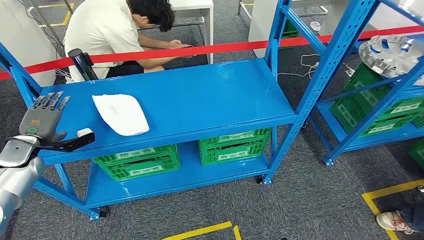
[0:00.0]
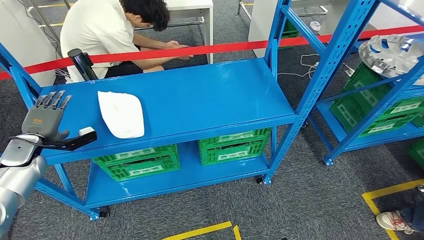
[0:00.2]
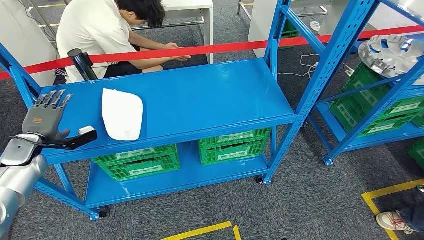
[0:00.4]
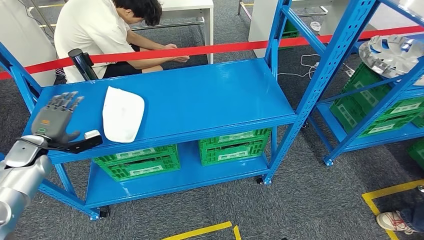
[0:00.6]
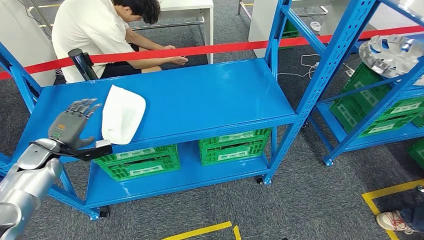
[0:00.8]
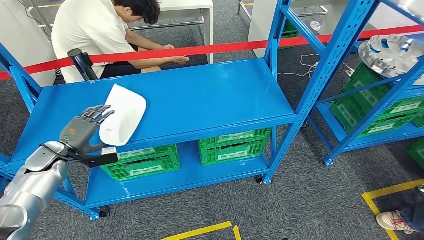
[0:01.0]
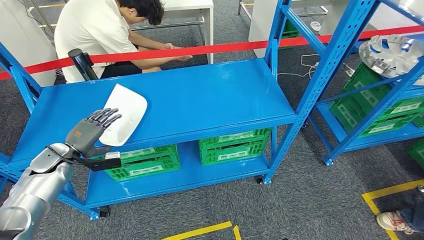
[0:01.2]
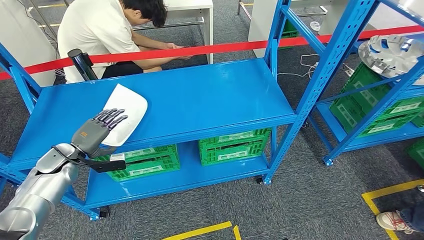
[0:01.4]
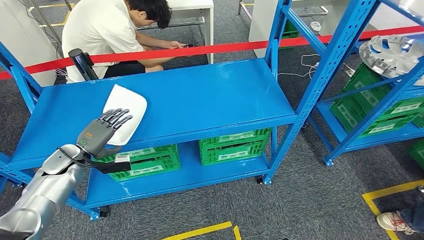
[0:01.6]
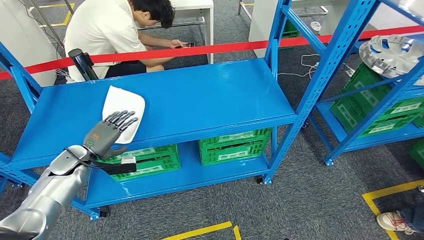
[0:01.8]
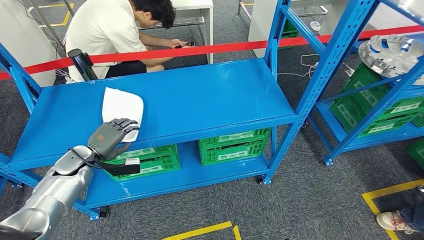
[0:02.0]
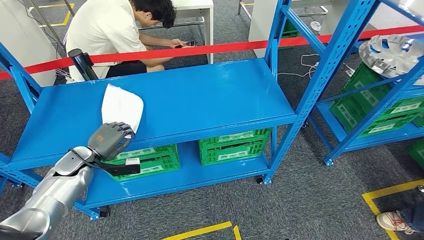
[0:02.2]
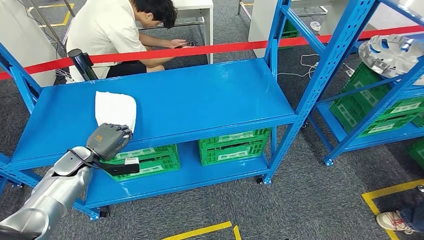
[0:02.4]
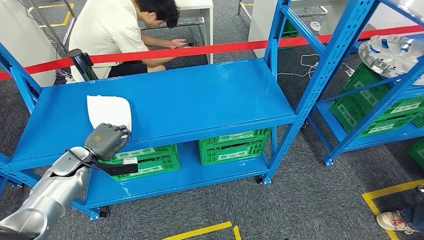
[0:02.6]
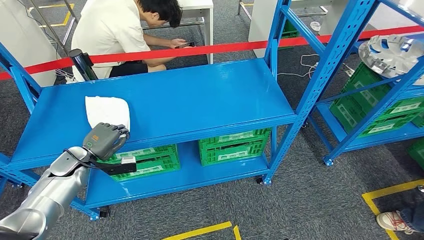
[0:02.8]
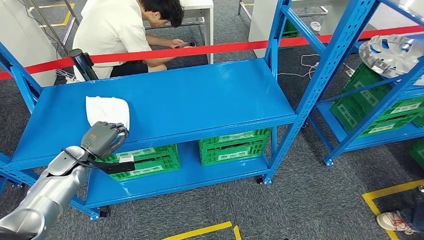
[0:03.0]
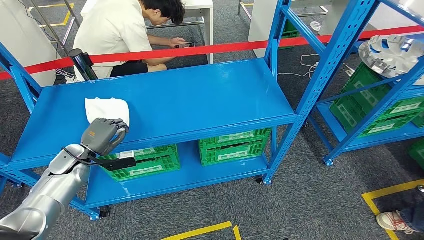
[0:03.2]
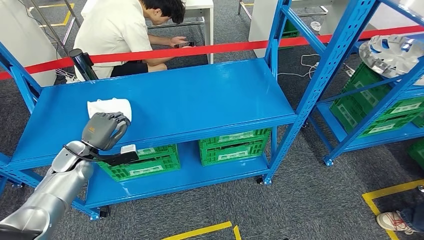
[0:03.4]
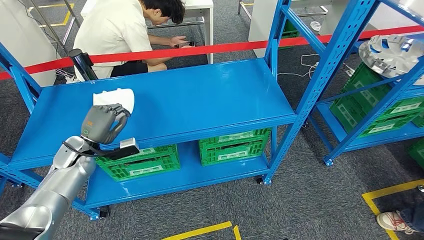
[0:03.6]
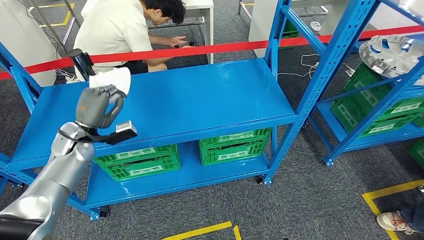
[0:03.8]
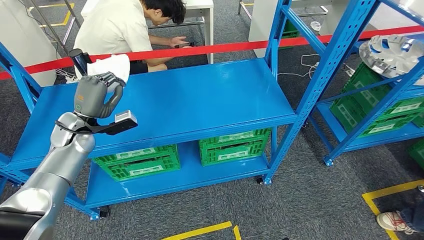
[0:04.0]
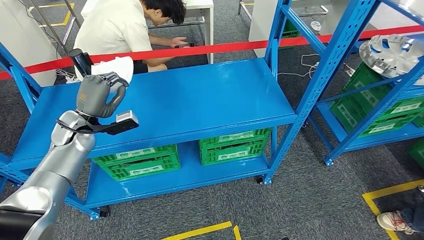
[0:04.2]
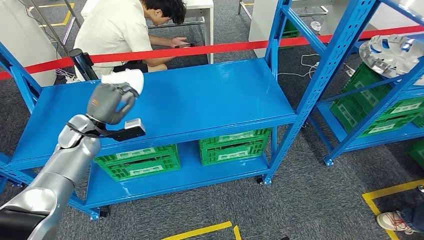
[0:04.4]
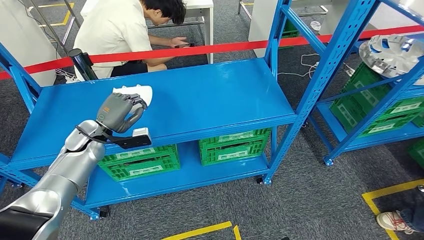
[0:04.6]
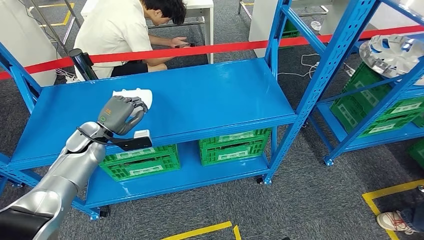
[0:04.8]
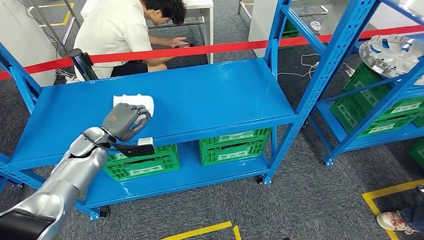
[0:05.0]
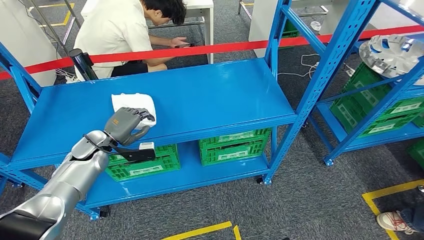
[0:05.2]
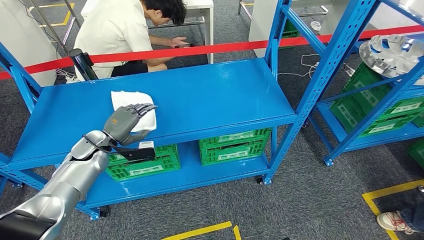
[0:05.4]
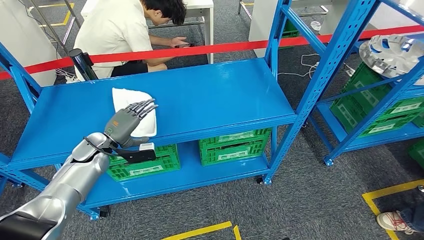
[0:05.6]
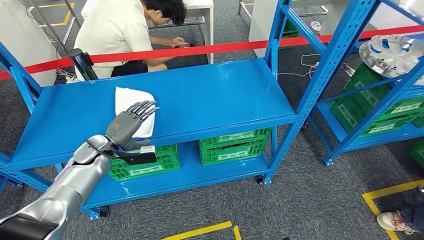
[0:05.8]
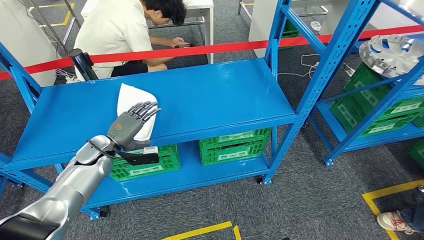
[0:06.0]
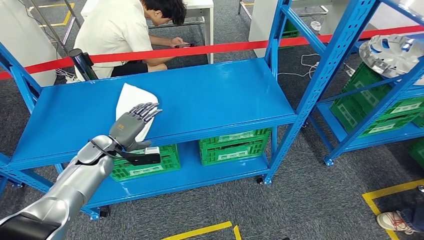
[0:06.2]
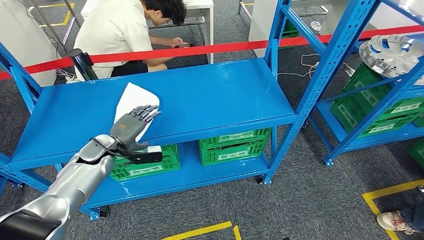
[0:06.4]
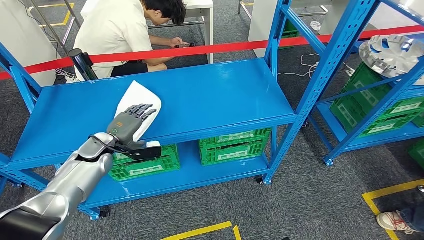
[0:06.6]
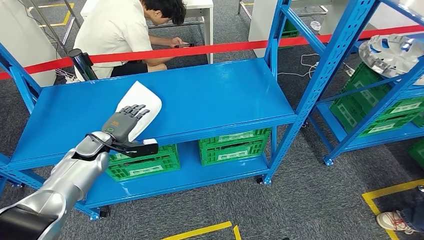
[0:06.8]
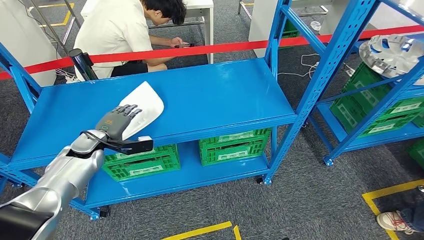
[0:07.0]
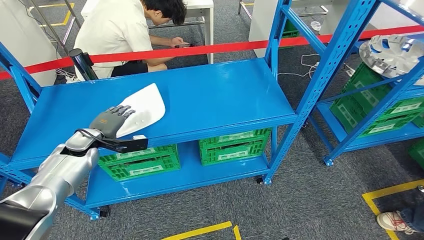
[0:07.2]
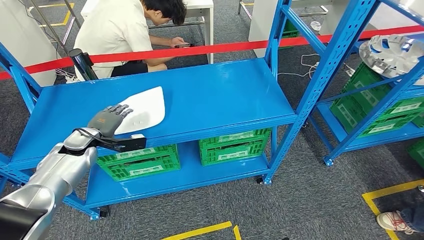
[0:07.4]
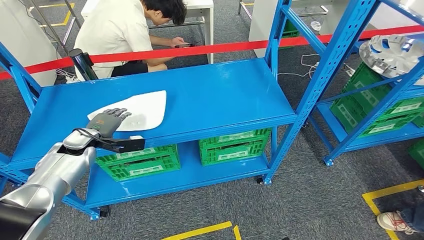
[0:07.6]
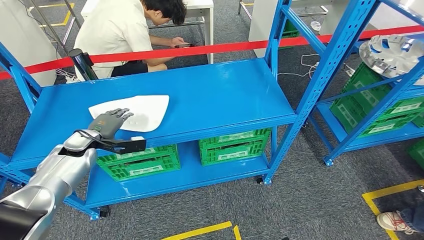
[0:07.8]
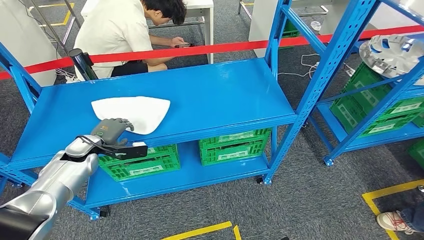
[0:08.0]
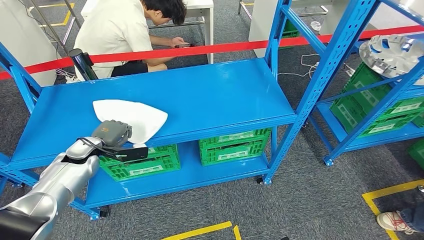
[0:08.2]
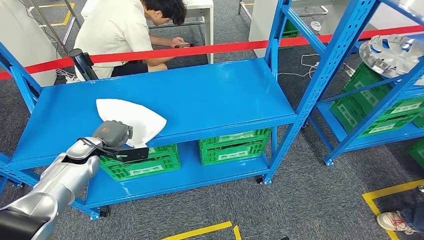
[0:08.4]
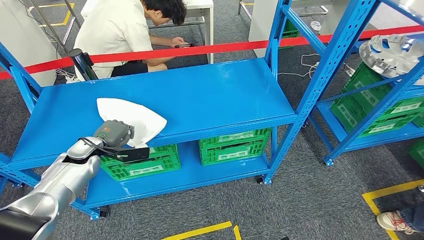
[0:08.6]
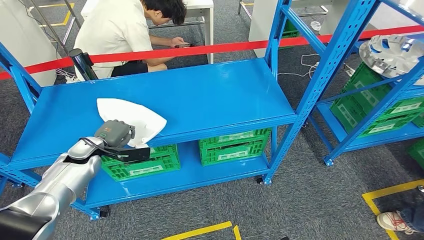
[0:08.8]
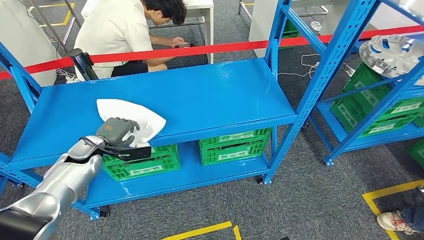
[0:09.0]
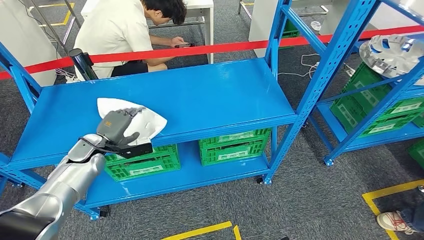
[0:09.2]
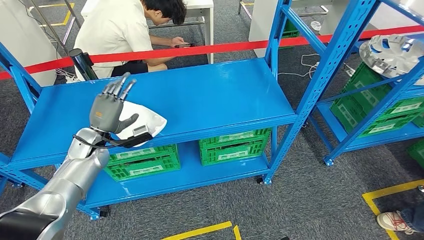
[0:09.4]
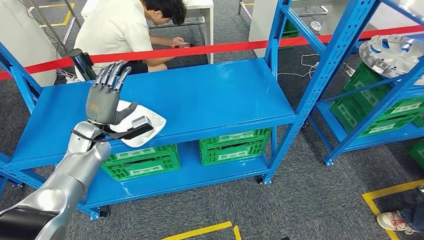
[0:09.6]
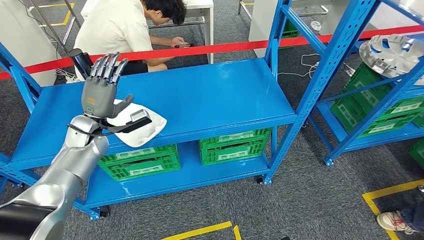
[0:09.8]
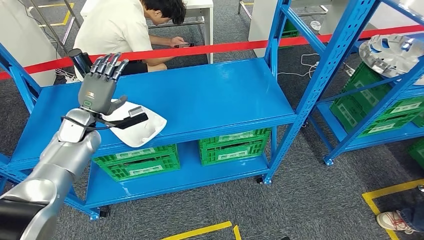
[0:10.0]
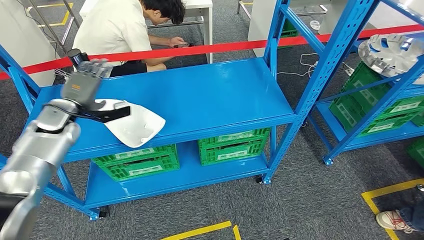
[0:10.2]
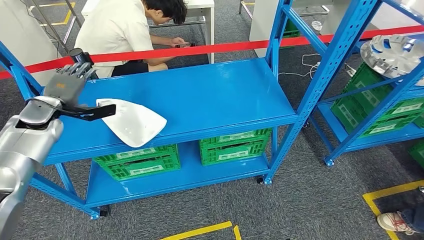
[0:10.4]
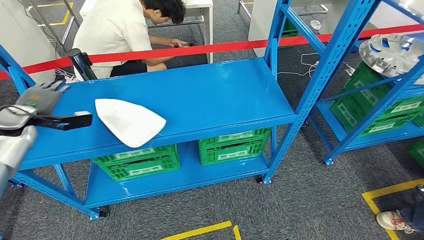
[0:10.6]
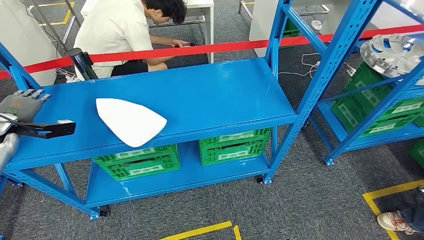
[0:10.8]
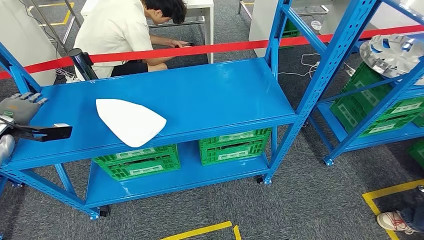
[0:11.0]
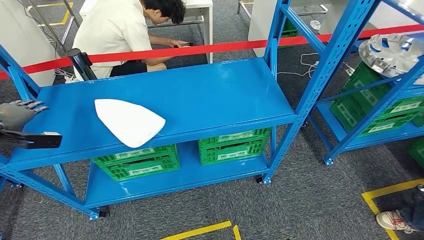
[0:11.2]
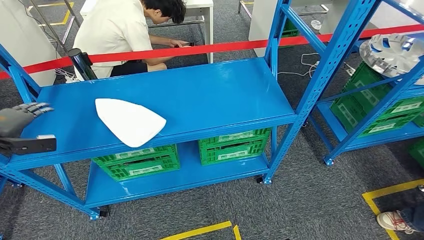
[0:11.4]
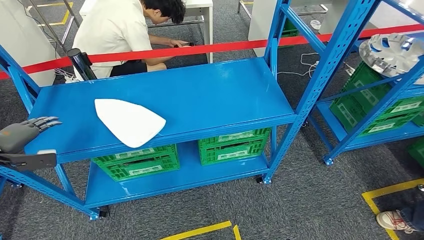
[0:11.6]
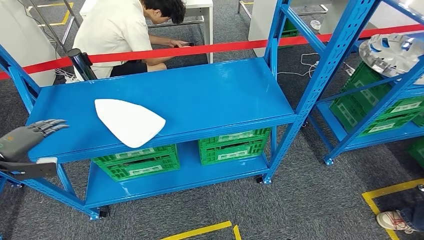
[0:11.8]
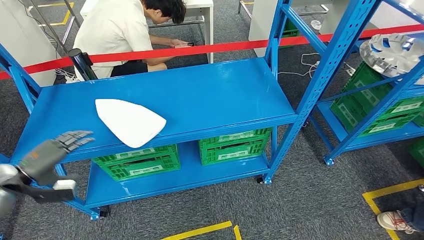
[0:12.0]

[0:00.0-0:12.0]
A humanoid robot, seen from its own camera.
Step, 0:00.0 to 0:04.8: Take small components from the rack.
0:01.6 to 0:03.0: The hands move only a little.
0:03.0 to 0:04.4: The left hand shifts roughly 10 cm upward, to the right and forward.
0:04.4 to 0:06.0: The left hand moves downward, roughly 5 cm.
0:06.0 to 0:07.6: The left hand ends up some 5 cm from where it was.
0:07.6 to 0:09.0: There are only small adjustments of the hands.
0:09.0 to 0:10.4: The left hand travels upward and to the left by about 15 cm.
0:10.4 to 0:12.0: The left hand goes approximately 20 cm backward, to the left and downward.

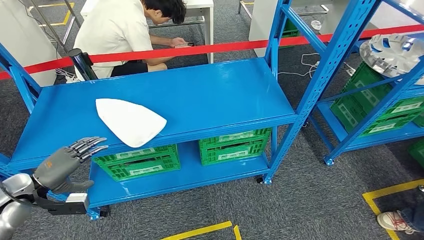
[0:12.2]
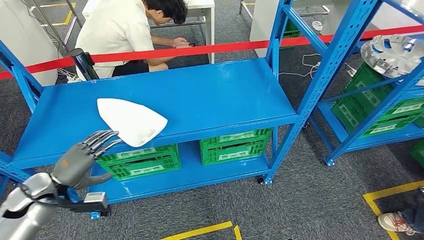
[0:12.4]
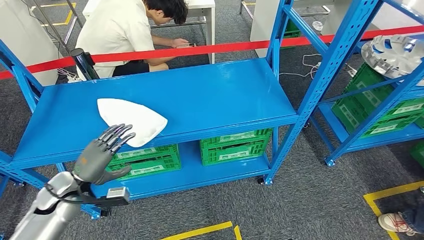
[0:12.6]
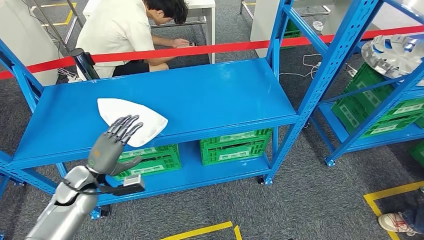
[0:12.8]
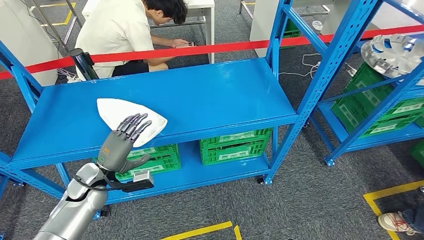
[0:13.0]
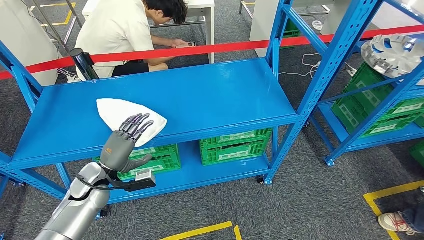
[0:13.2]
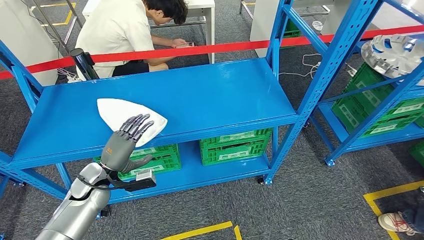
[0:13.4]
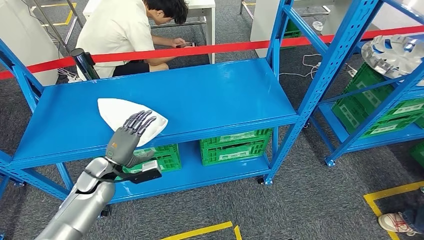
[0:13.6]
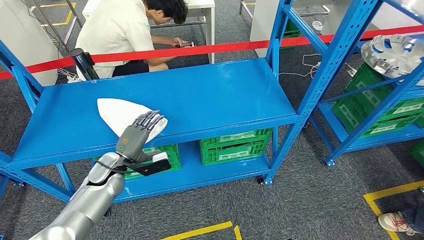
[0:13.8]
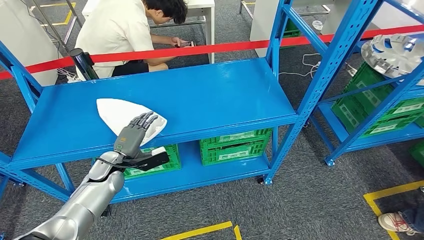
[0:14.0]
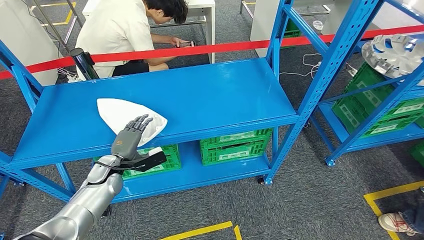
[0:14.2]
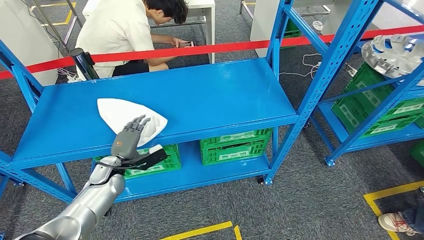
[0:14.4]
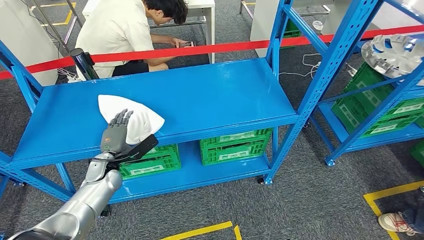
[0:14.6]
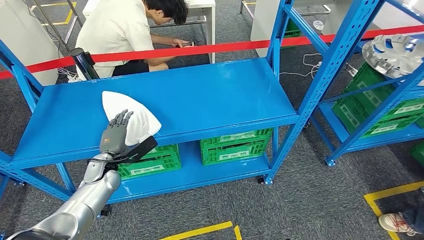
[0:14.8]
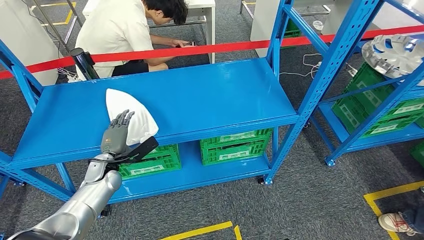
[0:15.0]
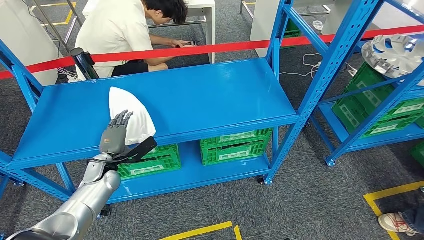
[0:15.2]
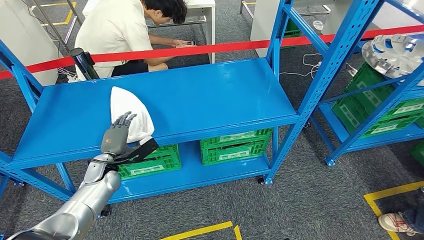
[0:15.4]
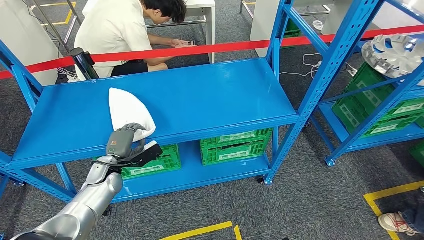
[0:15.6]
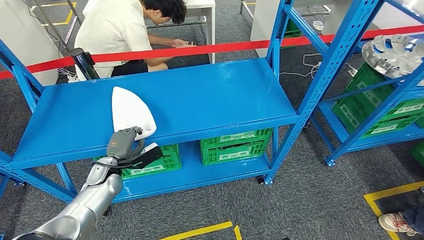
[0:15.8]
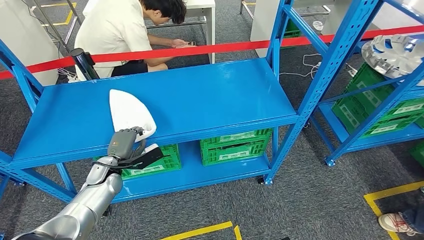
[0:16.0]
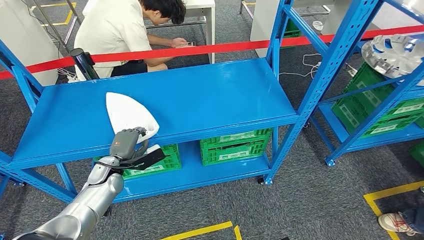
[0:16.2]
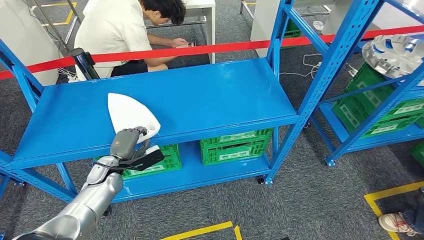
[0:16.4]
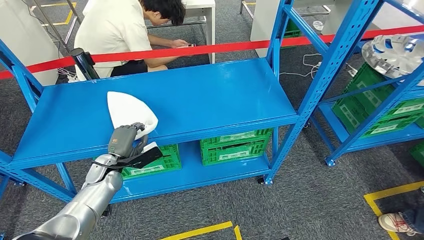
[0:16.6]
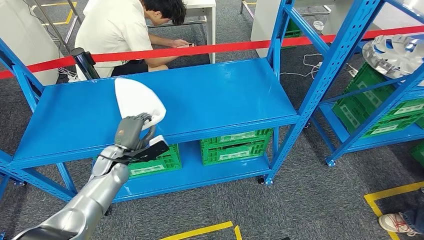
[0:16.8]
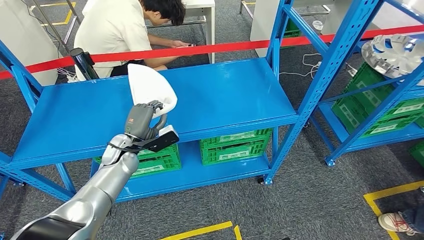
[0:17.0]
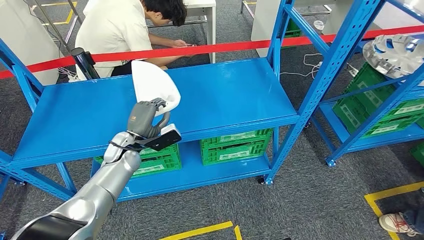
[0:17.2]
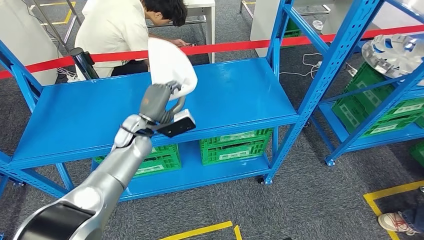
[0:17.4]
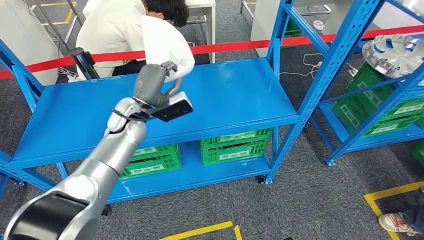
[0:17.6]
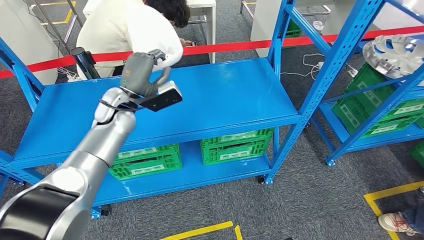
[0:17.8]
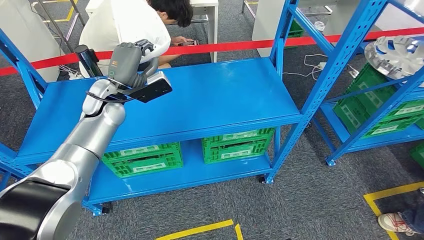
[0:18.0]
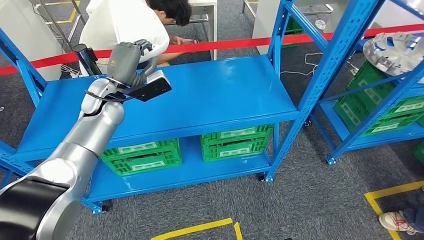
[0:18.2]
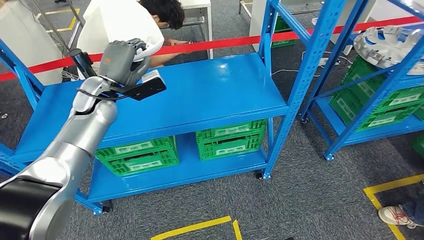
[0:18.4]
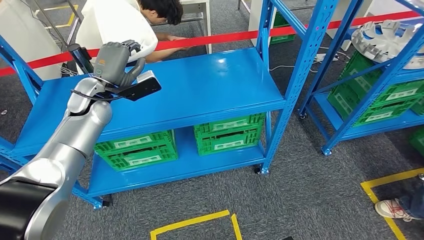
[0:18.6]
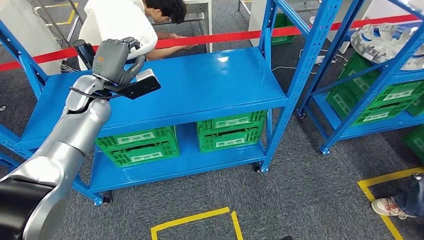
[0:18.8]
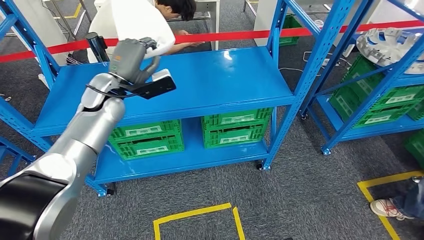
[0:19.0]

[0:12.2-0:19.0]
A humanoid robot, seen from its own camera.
0:12.2 to 0:13.6: The left hand moves to the right, about 20 cm.
0:15.0 to 0:16.2: There are only small adjustments of the hands.
0:16.2 to 0:17.6: The left hand shifts about 20 cm upward, to the right and forward.
